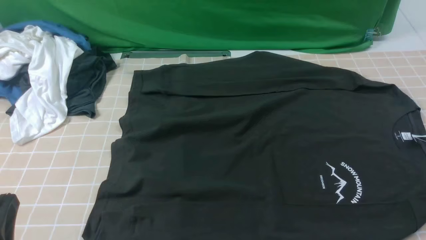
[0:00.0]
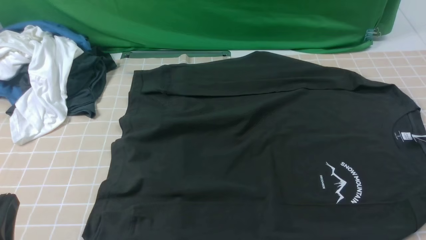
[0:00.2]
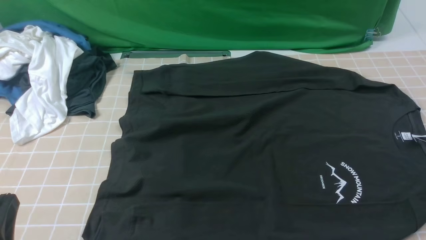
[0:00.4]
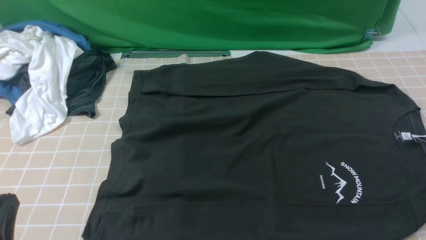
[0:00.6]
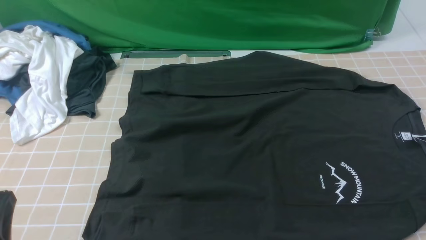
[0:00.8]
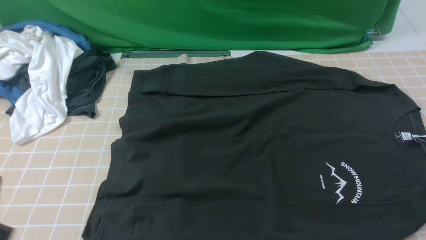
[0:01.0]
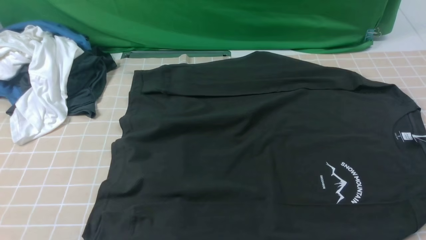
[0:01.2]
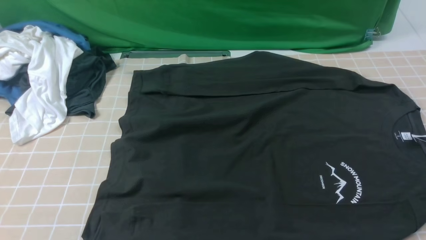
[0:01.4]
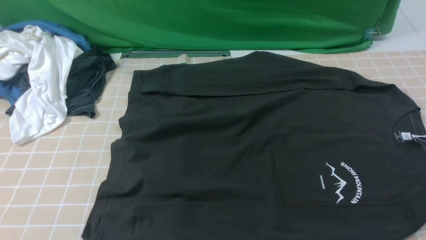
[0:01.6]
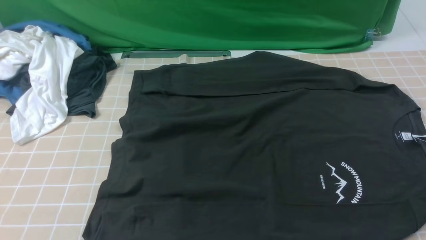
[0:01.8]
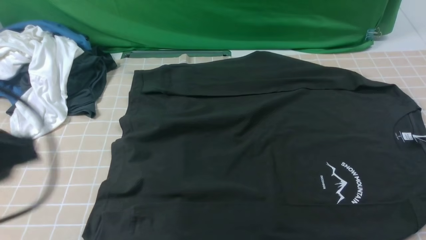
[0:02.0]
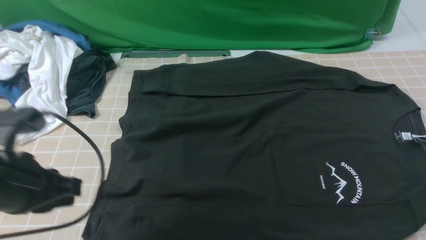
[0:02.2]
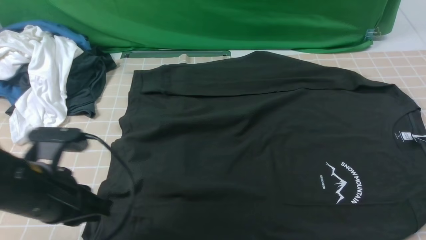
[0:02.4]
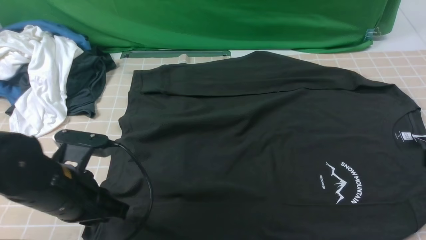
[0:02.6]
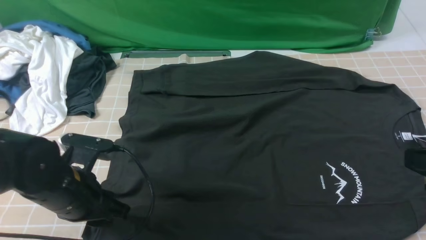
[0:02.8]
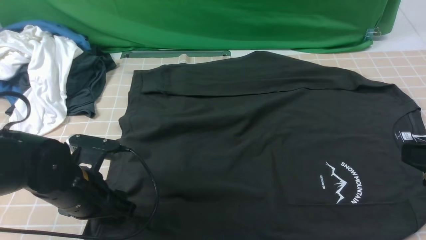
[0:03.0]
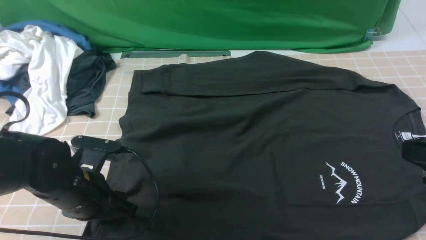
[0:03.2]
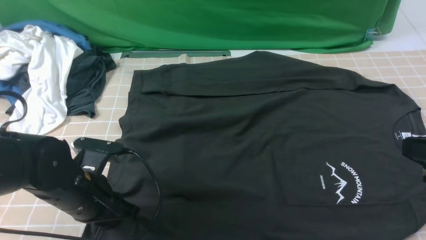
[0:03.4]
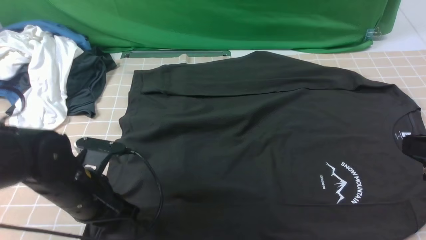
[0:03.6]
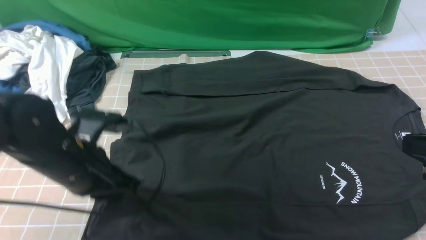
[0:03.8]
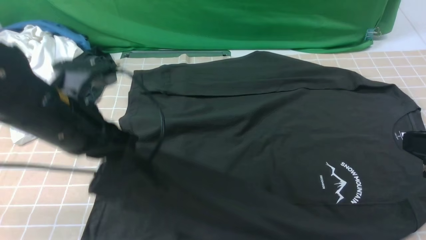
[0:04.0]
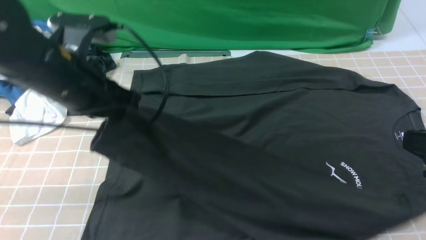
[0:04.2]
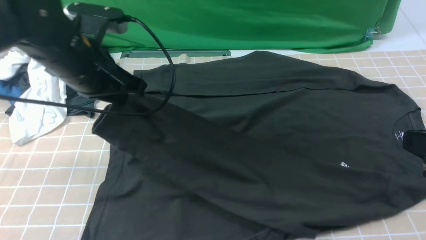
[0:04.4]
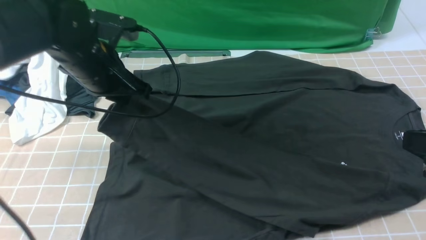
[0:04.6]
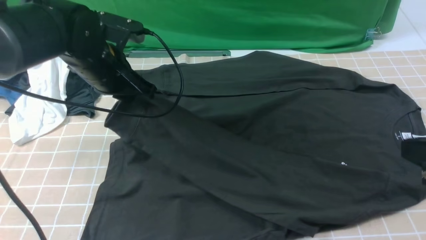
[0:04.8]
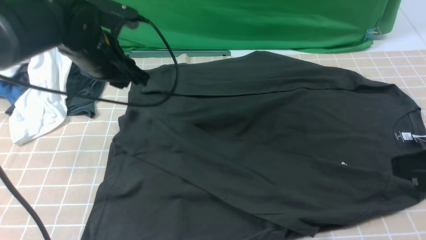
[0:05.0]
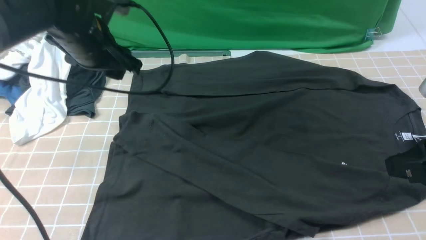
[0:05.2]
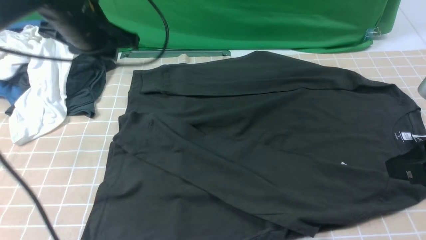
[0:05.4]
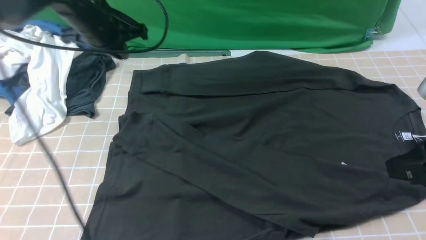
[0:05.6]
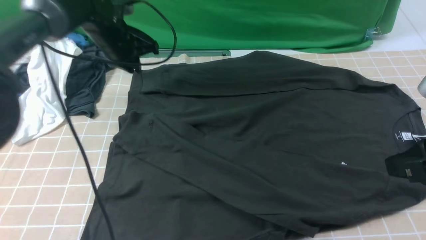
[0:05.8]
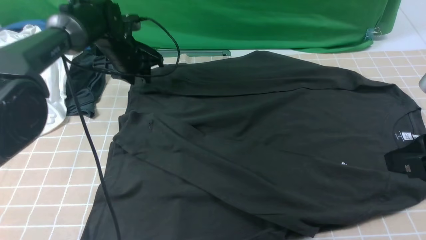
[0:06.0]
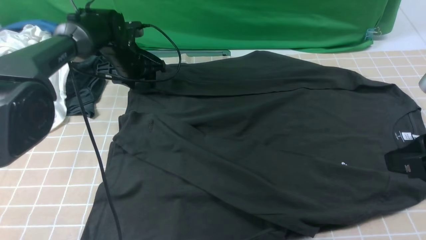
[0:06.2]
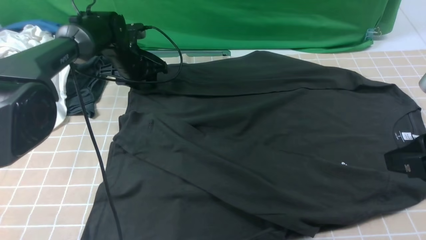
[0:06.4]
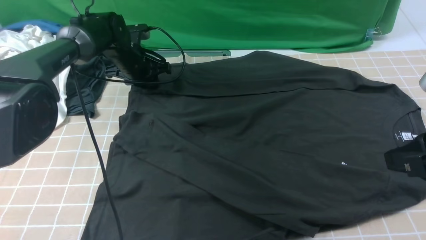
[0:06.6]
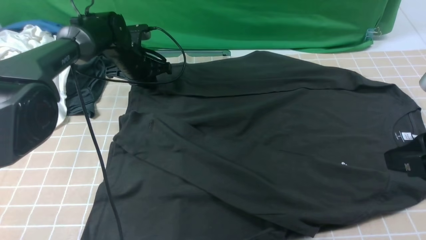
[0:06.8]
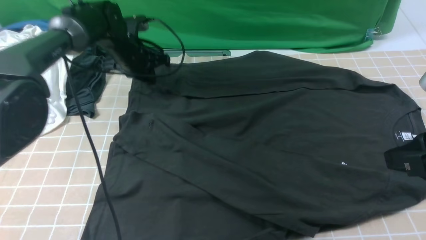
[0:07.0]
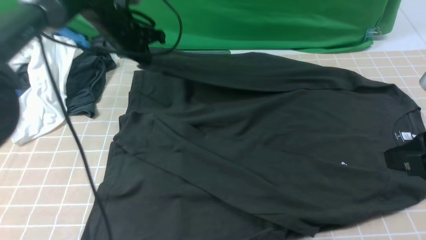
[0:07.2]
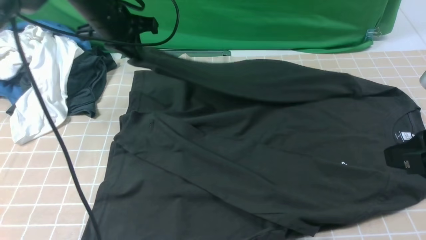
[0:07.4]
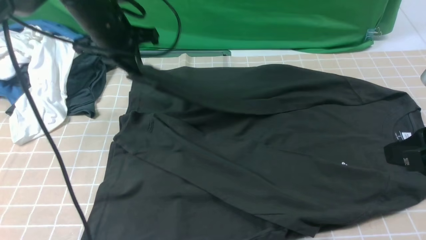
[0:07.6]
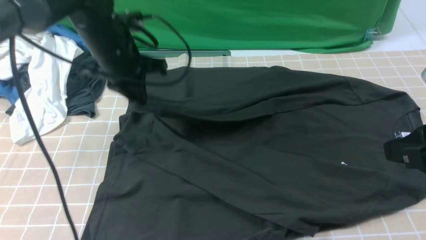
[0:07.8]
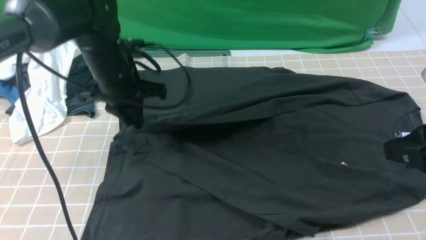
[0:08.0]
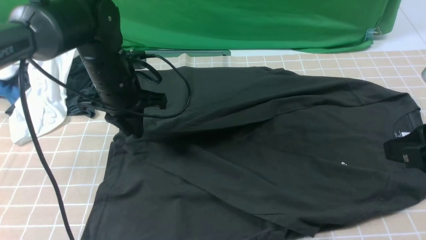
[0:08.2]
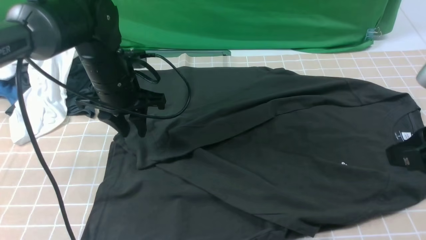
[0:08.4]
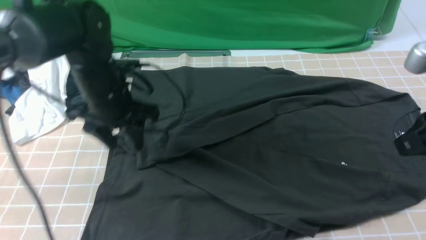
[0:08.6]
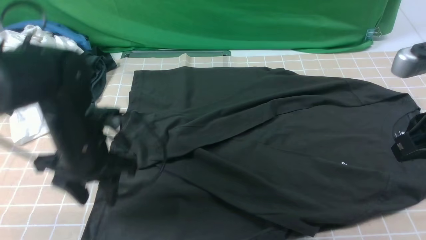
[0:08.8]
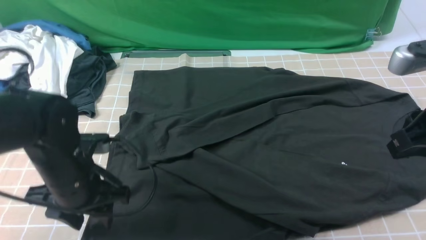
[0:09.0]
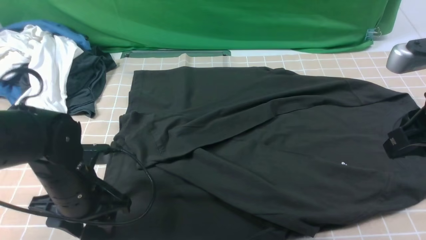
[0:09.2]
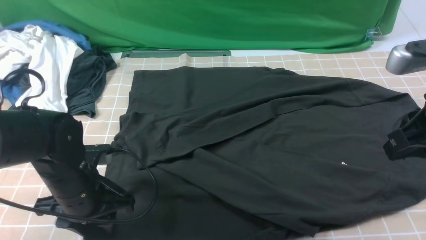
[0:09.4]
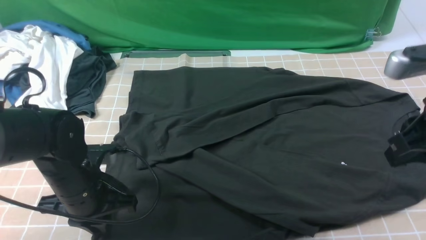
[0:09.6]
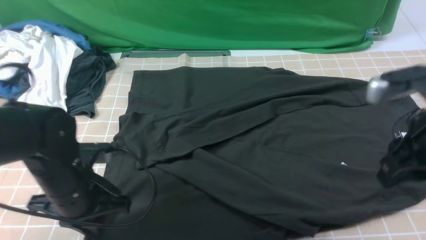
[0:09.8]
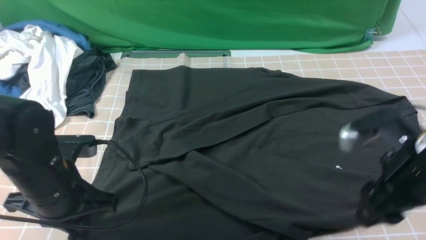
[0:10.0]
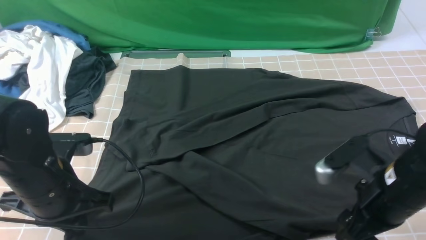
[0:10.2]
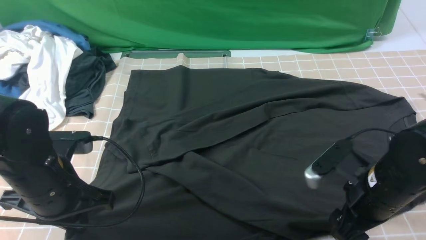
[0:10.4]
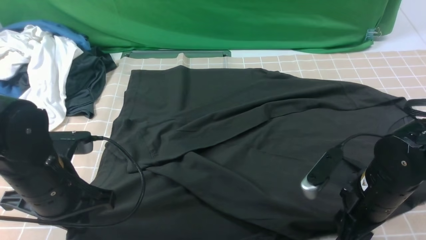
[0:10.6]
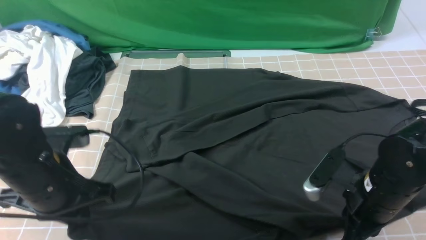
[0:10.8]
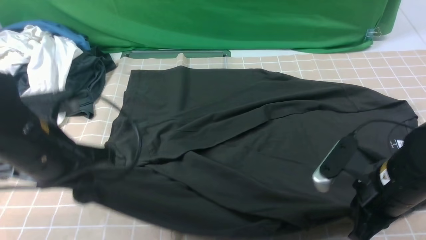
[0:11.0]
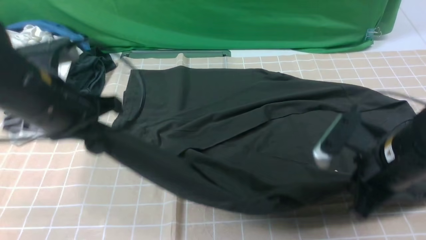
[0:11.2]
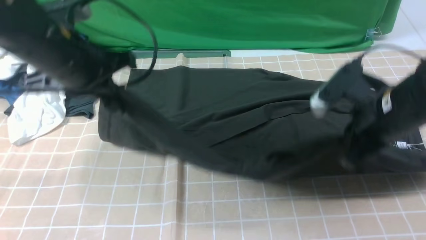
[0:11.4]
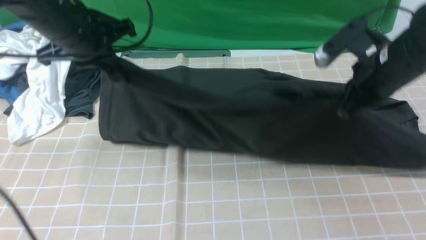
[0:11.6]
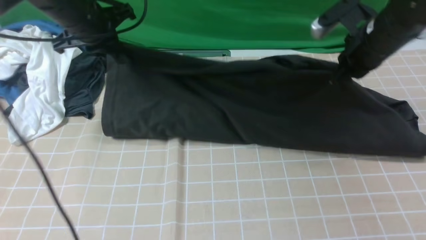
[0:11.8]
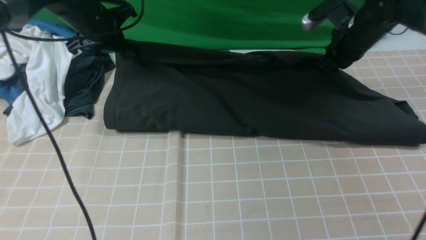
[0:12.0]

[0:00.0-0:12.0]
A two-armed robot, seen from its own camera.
Step, 0:00.0 to 0:03.4: use the left arm to clamp the cuff closest to it.
Step, 0:03.6 to 0:05.0: use the left arm to drag and place the cuff at the centered position on the left edge of the fabric.
Step, 0:05.2 to 0:06.6: use the left arm to clamp the cuff farthest from it.
Step, 0:07.0 to 0:08.2: use the left arm to drag and drop the cuff onto the cuff closest to the left arm.
Step, 0:08.4 to 0:10.6: use both arms simultaneously to clamp the lower edge of the clothing fabric.
0:00.0 to 0:01.6: The left gripper travels upward by some 10 cm.
0:01.6 to 0:03.0: The left gripper is displaced forward, downward and to the right by roughly 25 cm, and opens; the right gripper moves upward and forward, some 10 cm, and closes up.
0:03.0 to 0:04.4: The left gripper shifts roughly 15 cm upward and forward, and closes up.
0:04.4 to 0:06.0: The right gripper opens; the left gripper goes approximately 20 cm forward and downward, and opens its fingers.
0:06.0 to 0:07.6: The left gripper travels upward and backward by about 15 cm, and closes.
0:07.6 to 0:09.0: The left gripper goes some 20 cm backward and downward, and opens.
0:09.0 to 0:10.4: The right gripper goes about 15 cm downward, and opens its fingers, while the left gripper ends up about 5 cm from where it was, and closes.
0:10.4 to 0:12.0: Both grippers travel together forward, some 25 cm. The right gripper closes up.

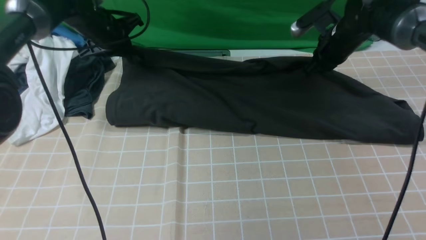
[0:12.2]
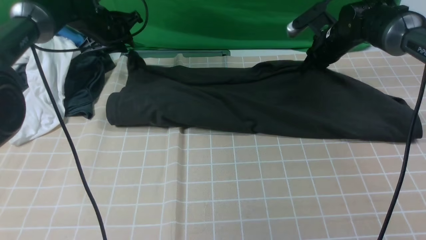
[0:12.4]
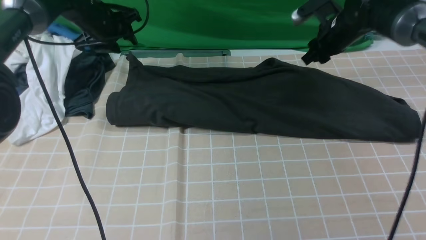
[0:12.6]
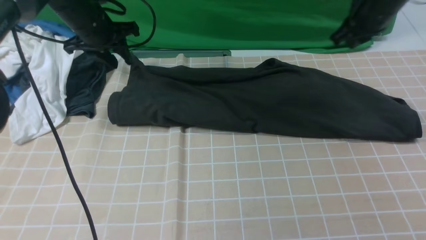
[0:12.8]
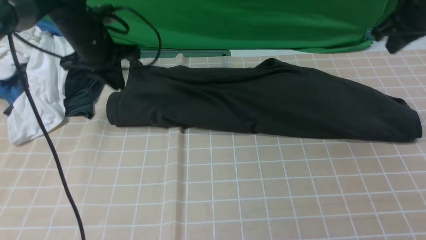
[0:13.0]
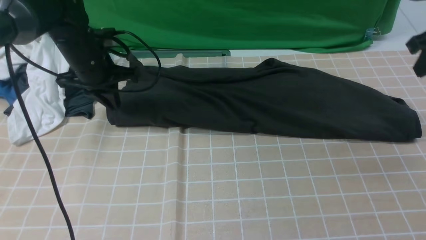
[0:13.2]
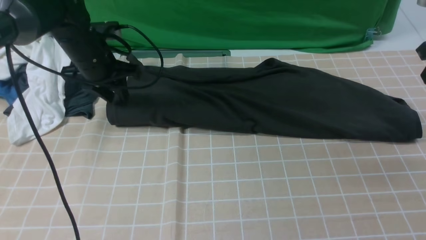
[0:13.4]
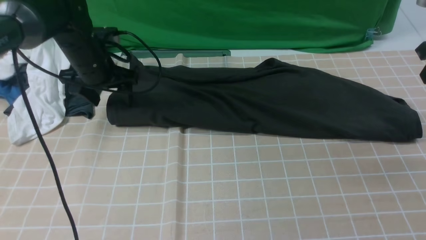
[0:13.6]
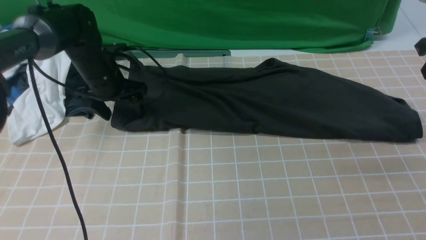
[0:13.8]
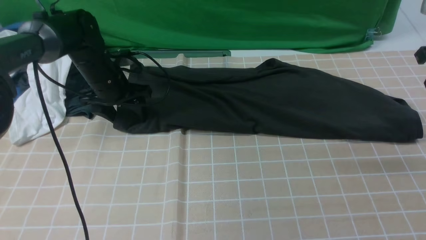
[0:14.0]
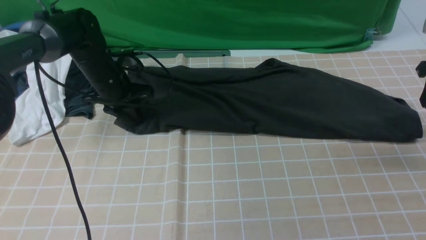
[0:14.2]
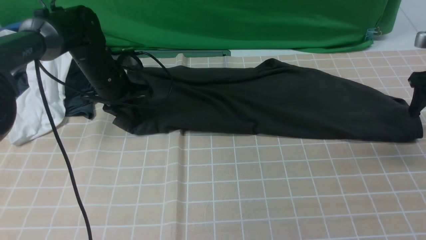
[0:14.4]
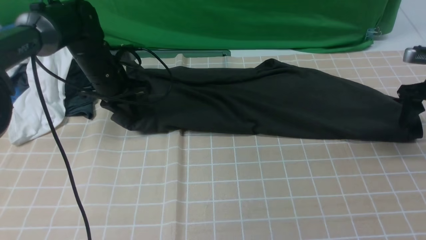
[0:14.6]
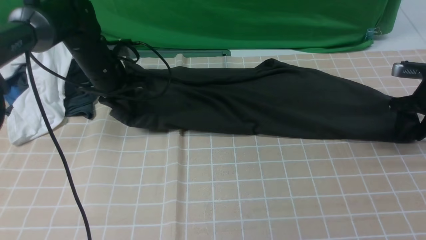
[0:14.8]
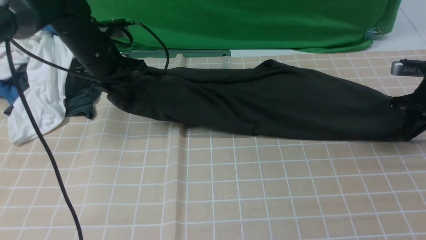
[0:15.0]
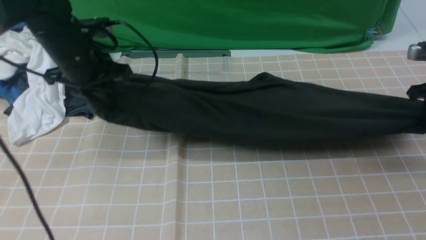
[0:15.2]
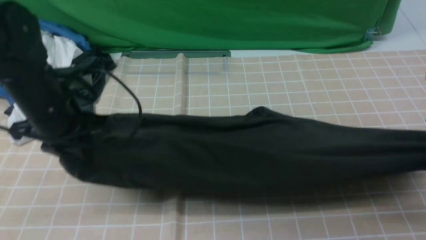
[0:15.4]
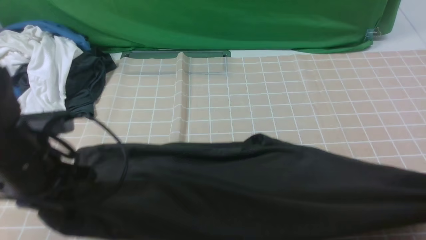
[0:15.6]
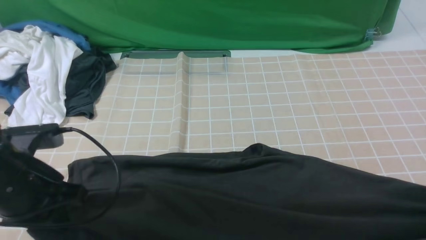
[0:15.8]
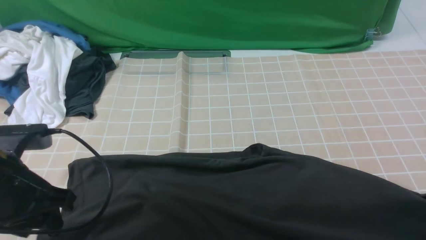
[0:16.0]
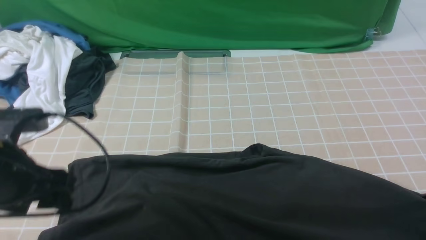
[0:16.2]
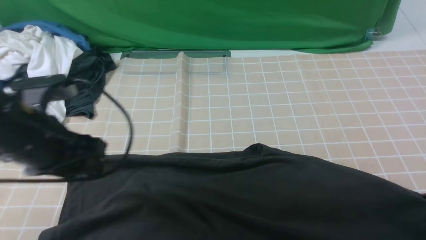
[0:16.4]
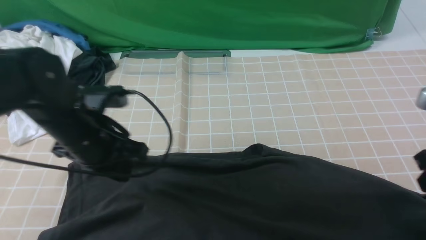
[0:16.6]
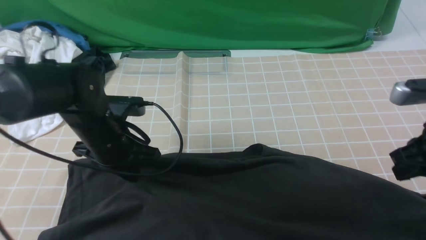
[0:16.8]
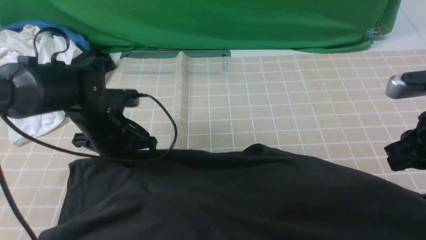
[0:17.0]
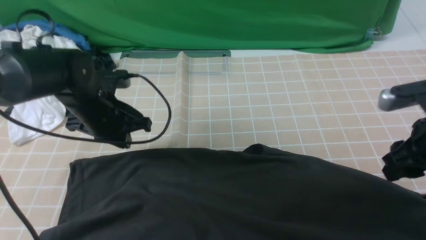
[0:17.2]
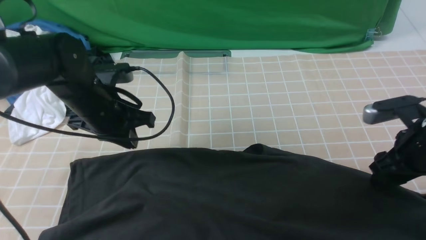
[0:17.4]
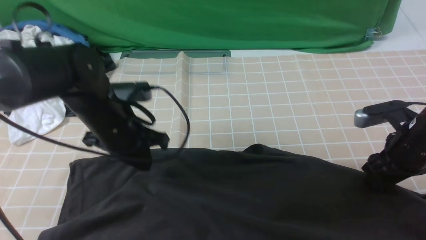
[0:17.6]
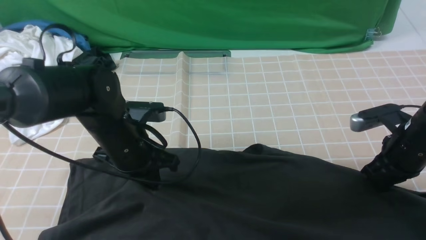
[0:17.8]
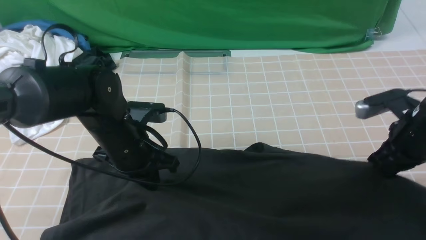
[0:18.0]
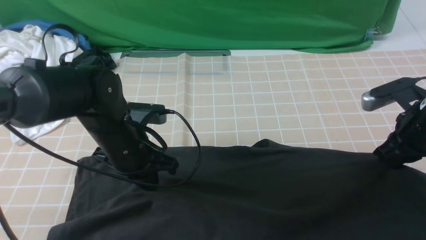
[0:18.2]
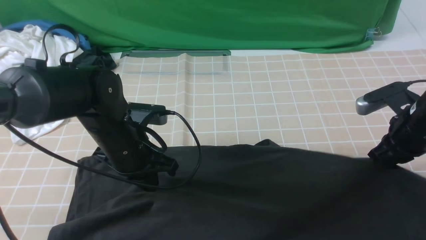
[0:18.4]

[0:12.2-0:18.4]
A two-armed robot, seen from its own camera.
0:12.2 to 0:13.8: The right gripper travels to the right, backward and upward by roughly 20 cm. The left gripper travels backward and downward by approximately 10 cm, and opens up.
0:13.8 to 0:15.4: The left gripper heads backward and upward, covering approximately 15 cm, and closes. Meanwhile the right gripper goes approximately 10 cm backward and downward, and opens, then closes once more.
0:15.4 to 0:16.8: The left gripper shifts roughly 10 cm downward and to the right, moves about 10 cm backward and comes back, and opens and closes again, while the right gripper shifts approximately 10 cm to the left and backward.
0:16.8 to 0:18.4: The right gripper moves forward and downward, some 10 cm, and opens, then closes again.
